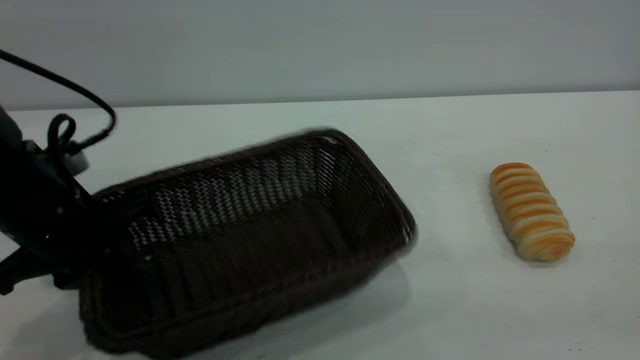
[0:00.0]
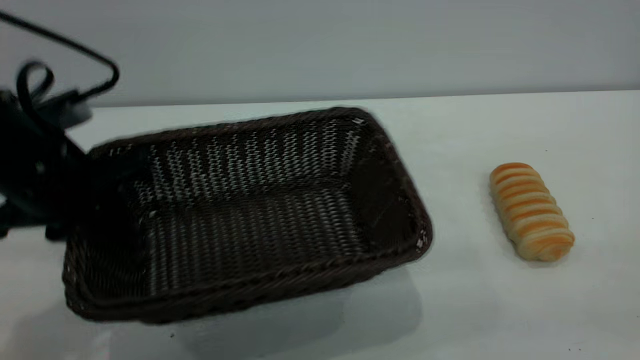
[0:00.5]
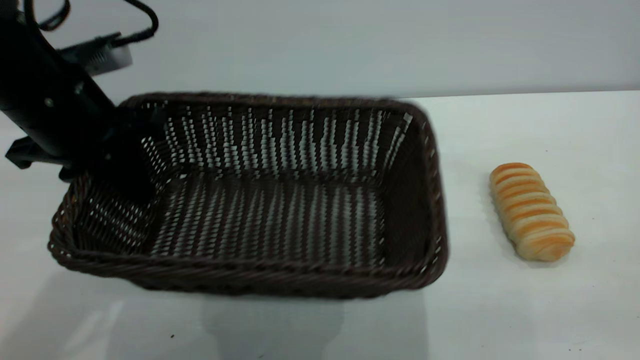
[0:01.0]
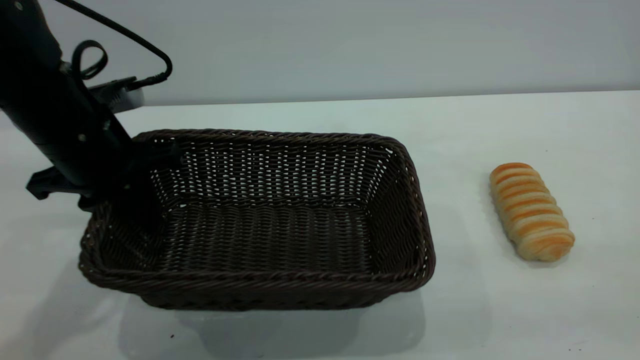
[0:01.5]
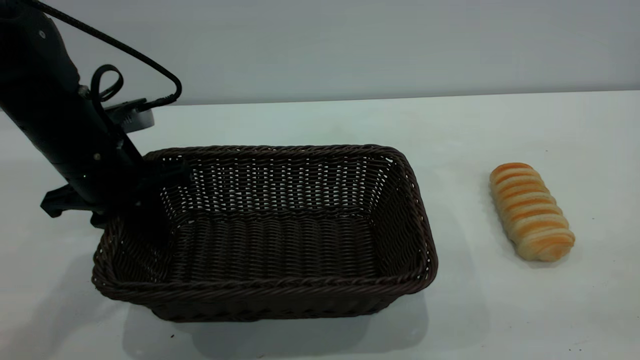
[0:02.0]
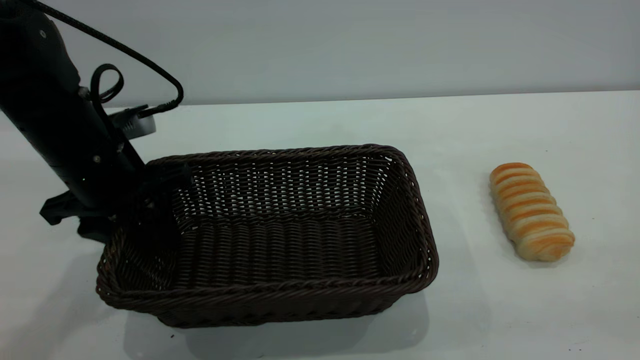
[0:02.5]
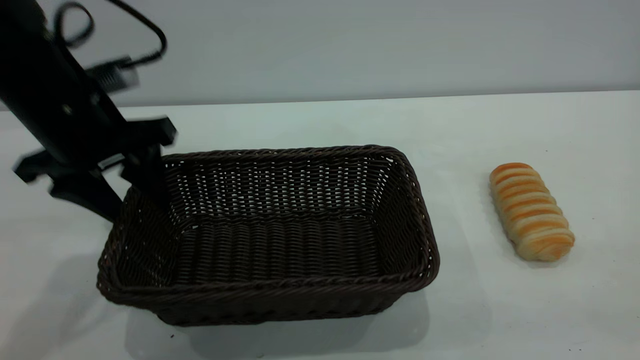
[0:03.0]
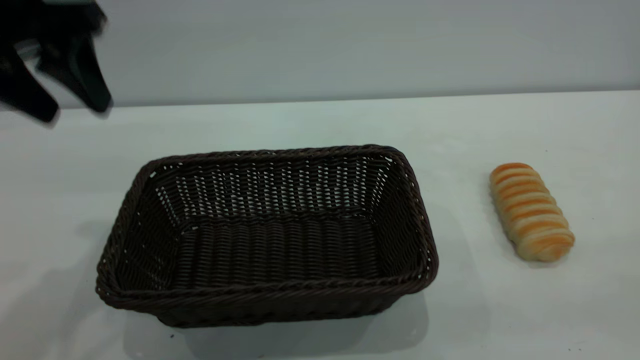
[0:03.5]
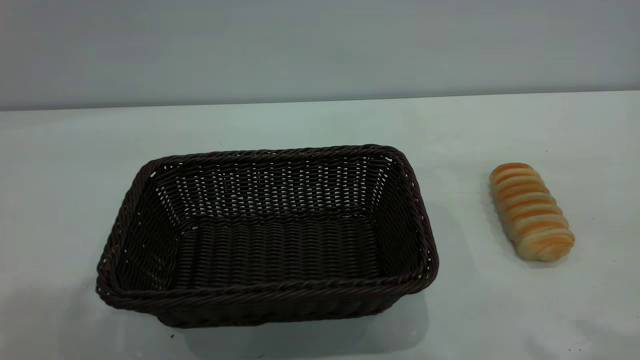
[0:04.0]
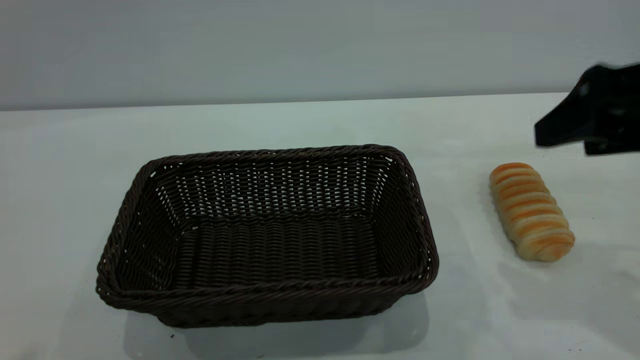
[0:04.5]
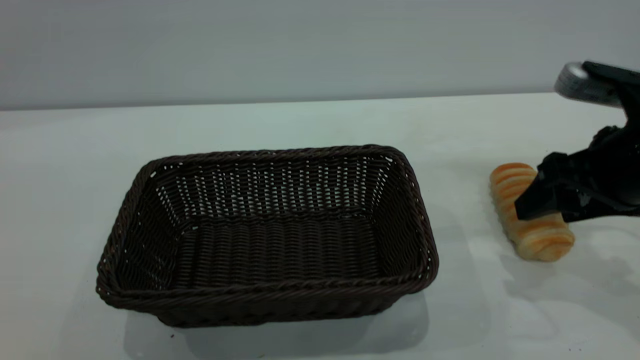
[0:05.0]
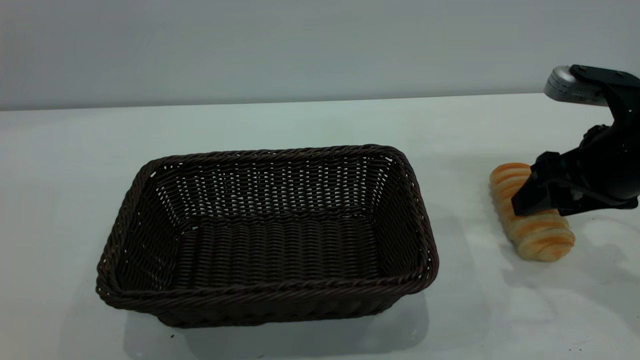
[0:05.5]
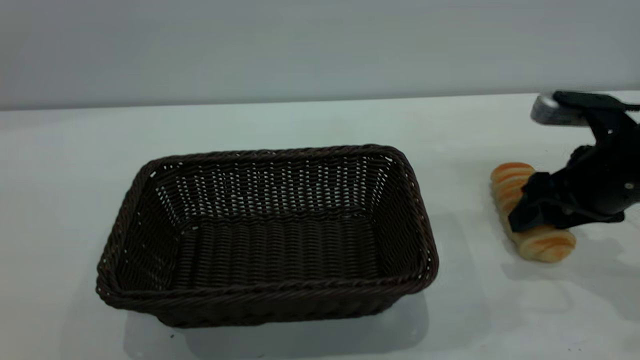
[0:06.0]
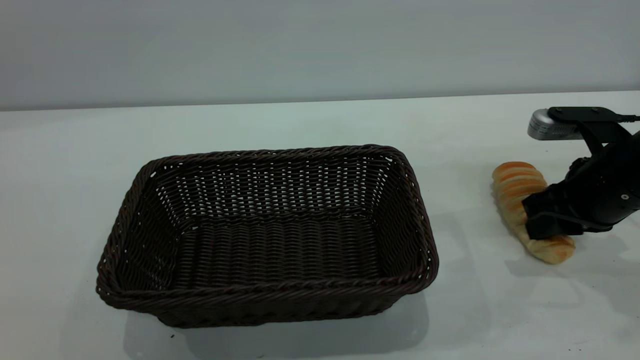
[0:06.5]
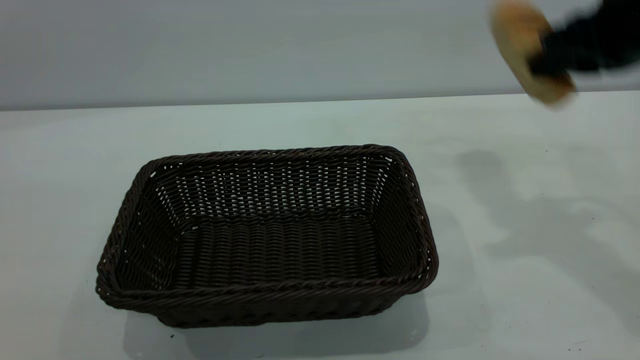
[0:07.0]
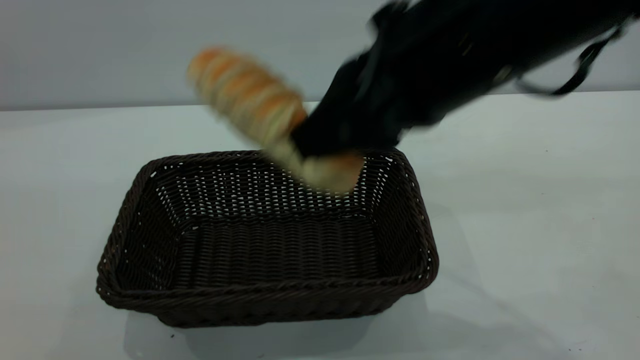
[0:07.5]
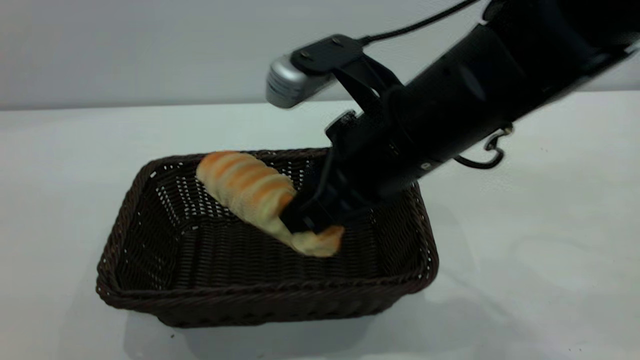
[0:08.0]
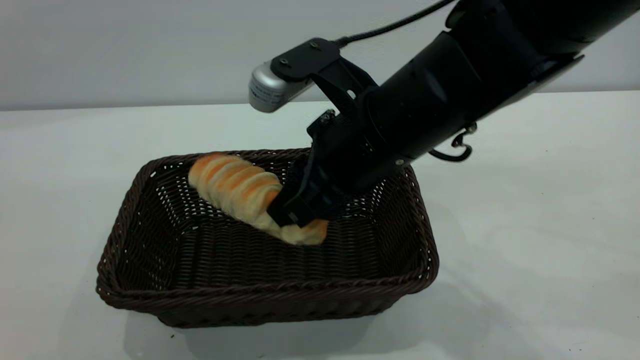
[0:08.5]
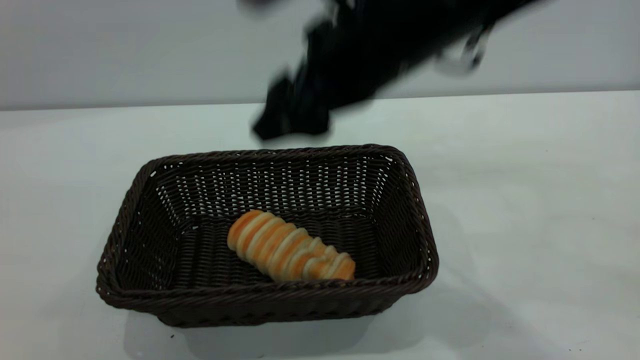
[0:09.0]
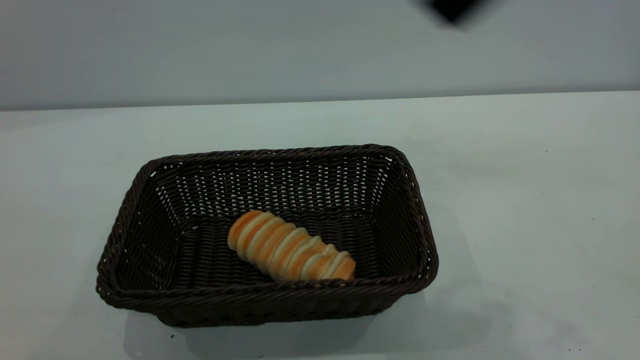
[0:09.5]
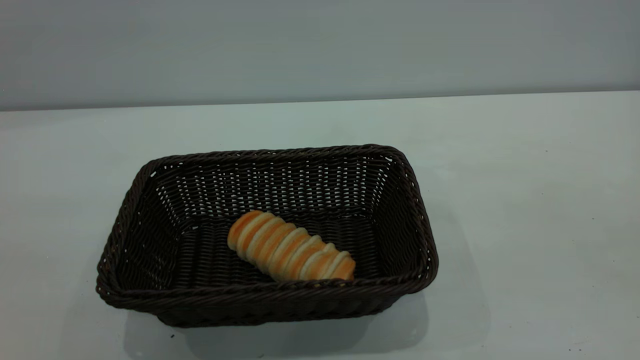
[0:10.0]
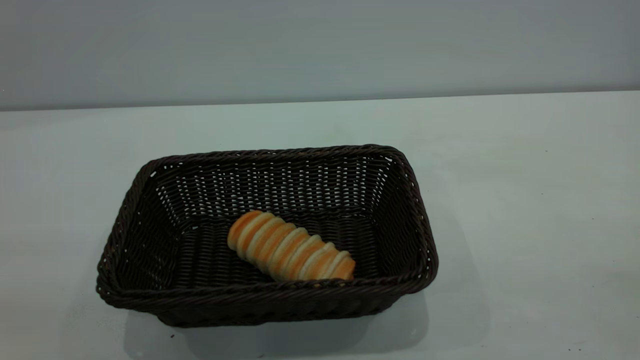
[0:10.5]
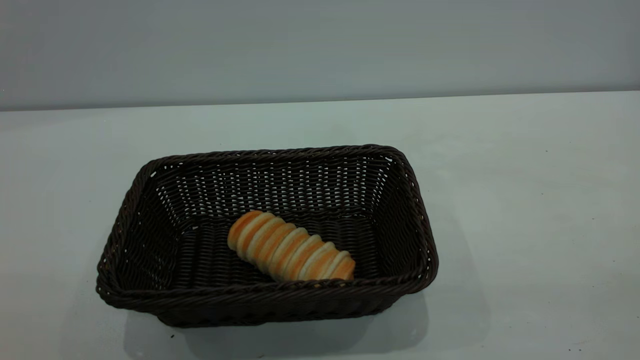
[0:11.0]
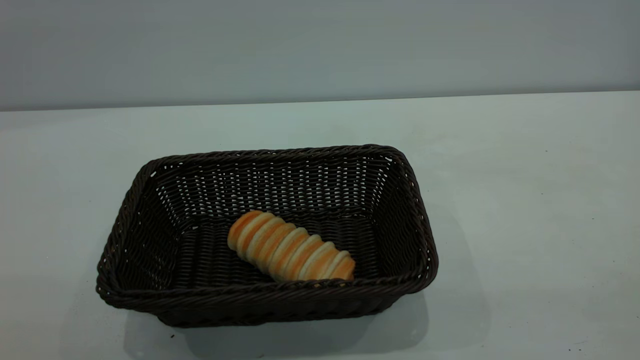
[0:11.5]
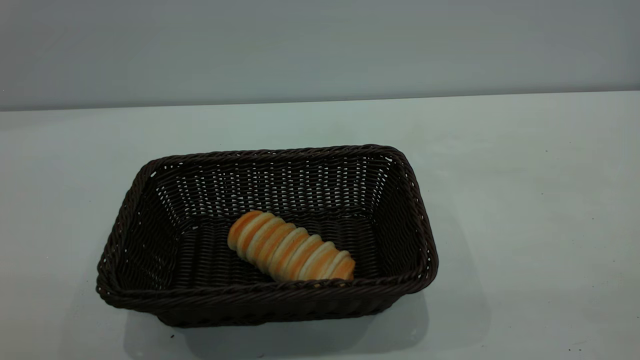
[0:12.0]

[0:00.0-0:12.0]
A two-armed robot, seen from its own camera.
Task of the whole recording: One hand grasps the black basket and places it in the middle of the table, while the other hand picks up the long bread and puts it into the black basket.
Step, 0:00.0 to 0:03.0: Move the basket to the center of view.
Step, 0:07.0 to 0:09.0: place the bread into the basket.
0:00.0 to 0:02.0: The left gripper travels forward by some 5 cm.
0:02.0 to 0:04.0: The right gripper is displaced forward by some 15 cm, and opens. Meanwhile the left gripper travels upward and backward by some 35 cm, and opens.
0:04.0 to 0:06.0: The right gripper shifts approximately 30 cm downward and forward.
0:06.0 to 0:08.0: The right gripper is displaced to the left and upward by about 25 cm, and closes up.
0:08.0 to 0:10.0: The right gripper heads backward, upward and to the right, covering roughly 30 cm, and opens. The left gripper heads downward, covering about 10 cm.

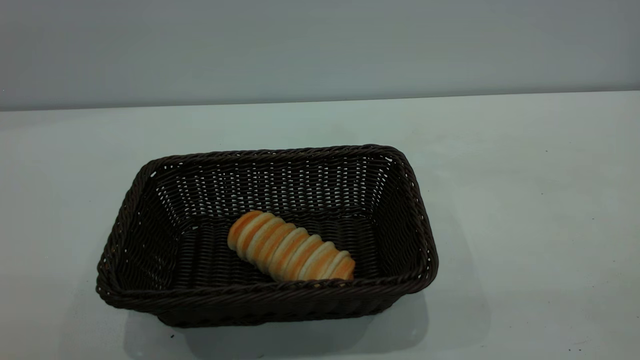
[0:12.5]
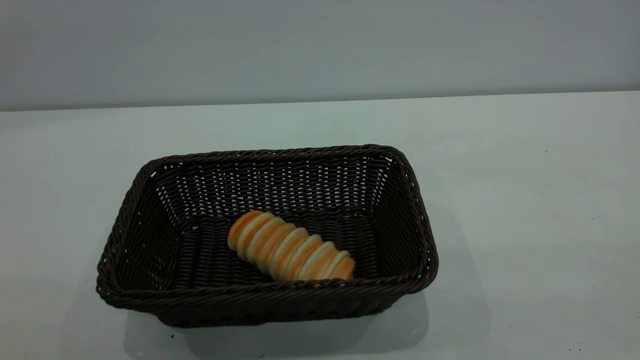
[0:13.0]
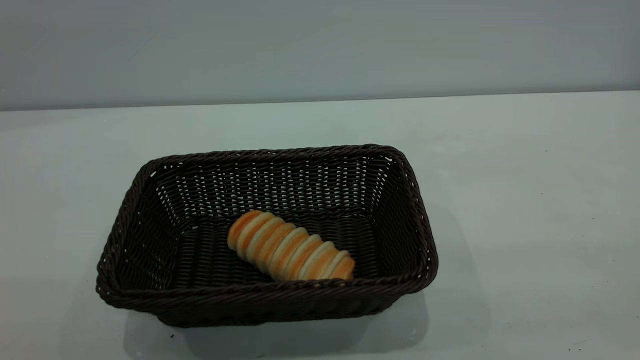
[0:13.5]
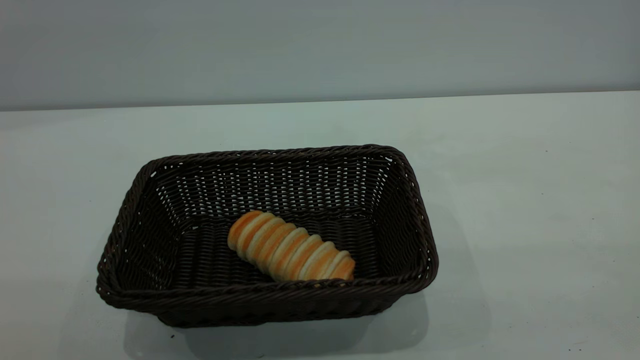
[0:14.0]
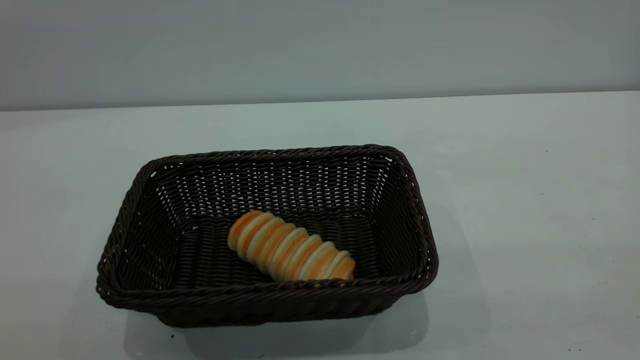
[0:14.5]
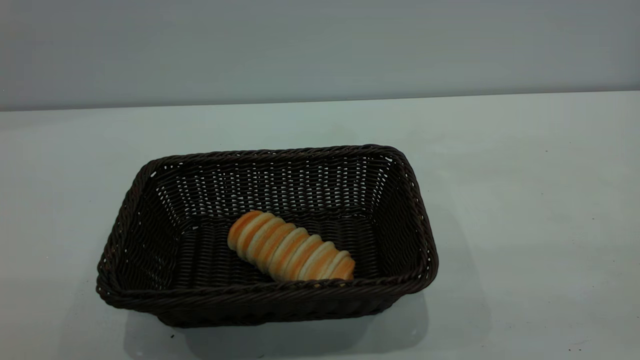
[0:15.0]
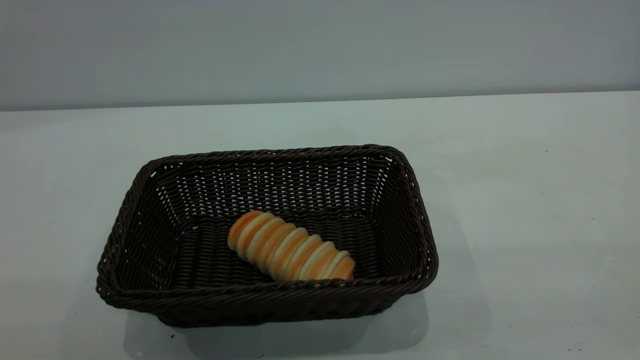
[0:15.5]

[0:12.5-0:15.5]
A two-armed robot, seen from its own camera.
Task of the whole recording: One hand grasps the black basket and places it in the middle of the table, while the other hand picks up the long bread and puts it into the black basket.
0:14.0 to 0:15.5: Both grippers stay about where they are.
